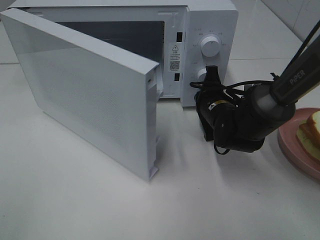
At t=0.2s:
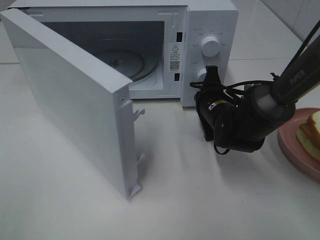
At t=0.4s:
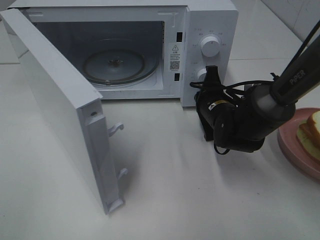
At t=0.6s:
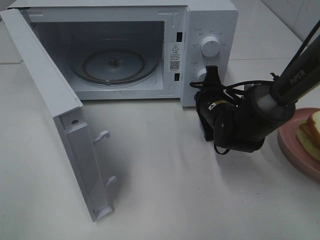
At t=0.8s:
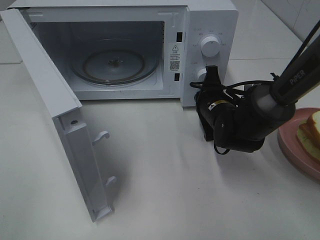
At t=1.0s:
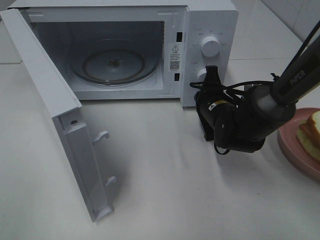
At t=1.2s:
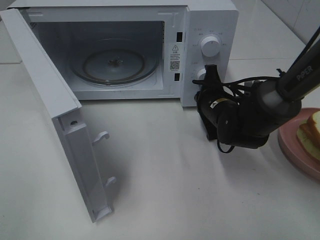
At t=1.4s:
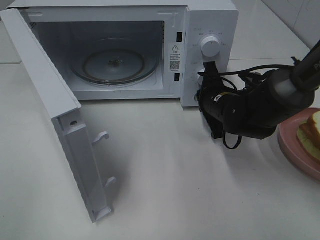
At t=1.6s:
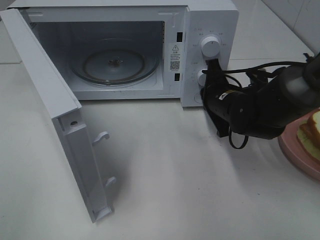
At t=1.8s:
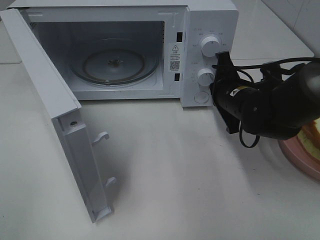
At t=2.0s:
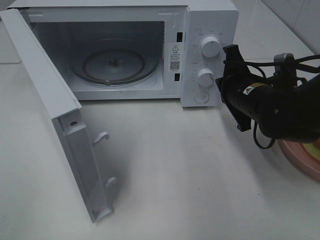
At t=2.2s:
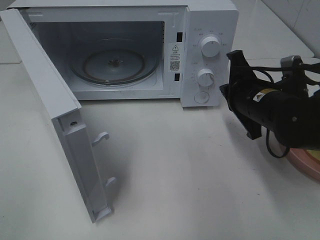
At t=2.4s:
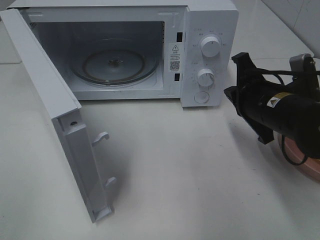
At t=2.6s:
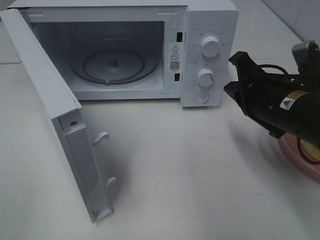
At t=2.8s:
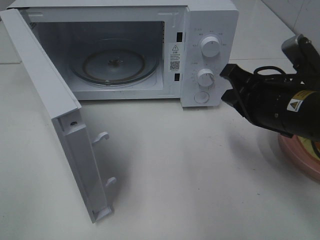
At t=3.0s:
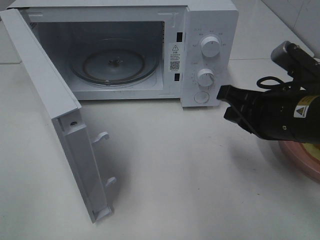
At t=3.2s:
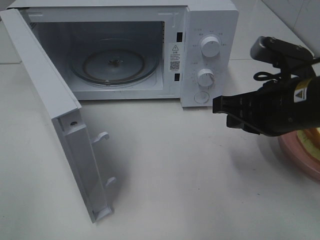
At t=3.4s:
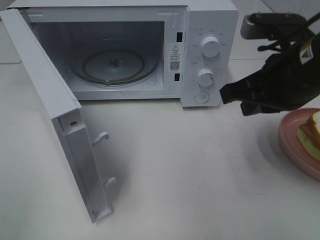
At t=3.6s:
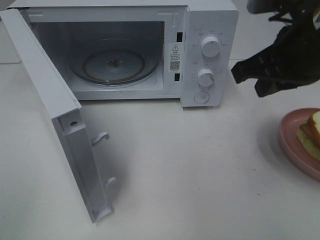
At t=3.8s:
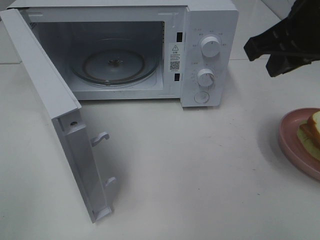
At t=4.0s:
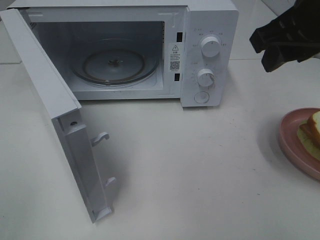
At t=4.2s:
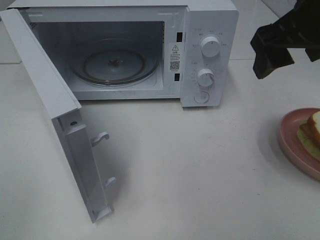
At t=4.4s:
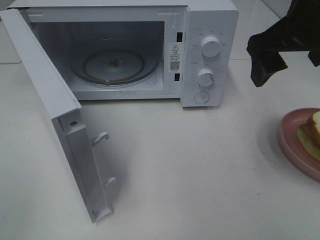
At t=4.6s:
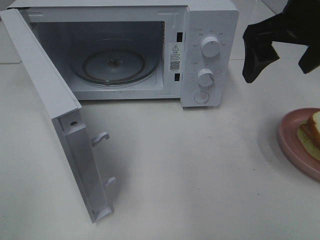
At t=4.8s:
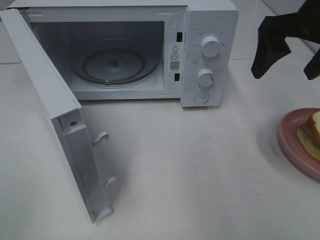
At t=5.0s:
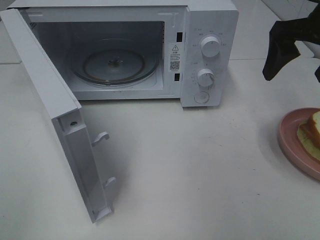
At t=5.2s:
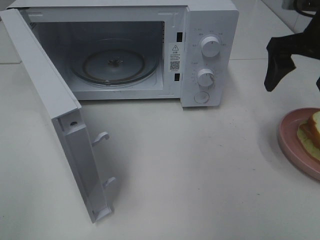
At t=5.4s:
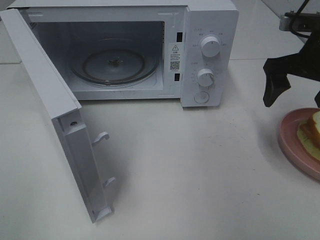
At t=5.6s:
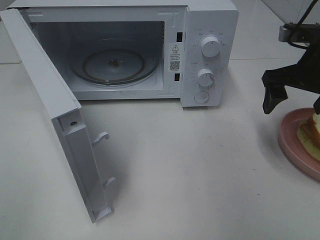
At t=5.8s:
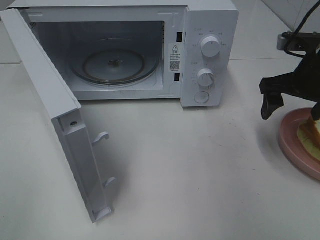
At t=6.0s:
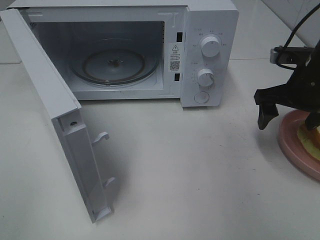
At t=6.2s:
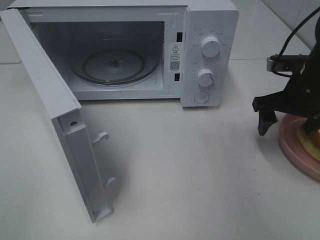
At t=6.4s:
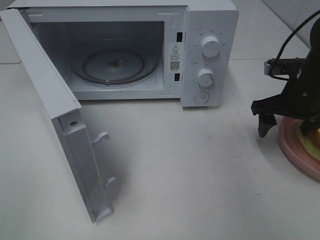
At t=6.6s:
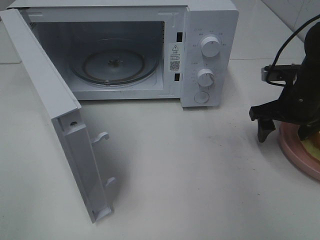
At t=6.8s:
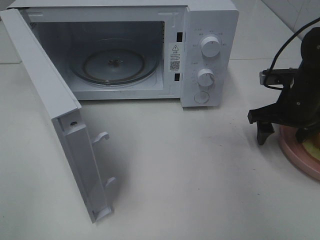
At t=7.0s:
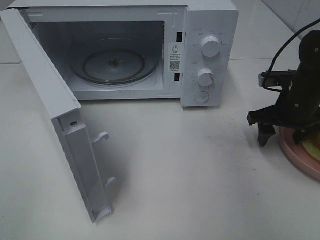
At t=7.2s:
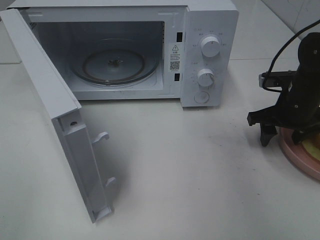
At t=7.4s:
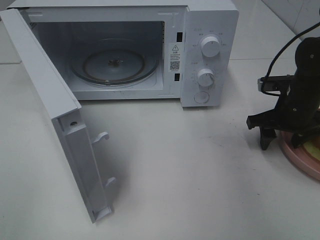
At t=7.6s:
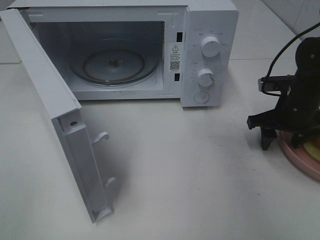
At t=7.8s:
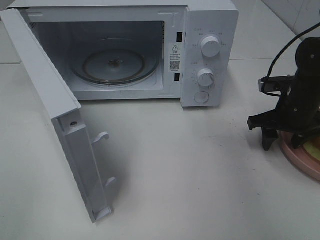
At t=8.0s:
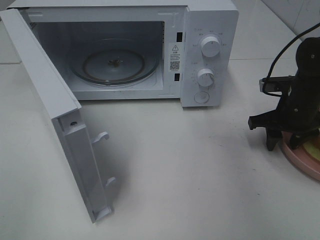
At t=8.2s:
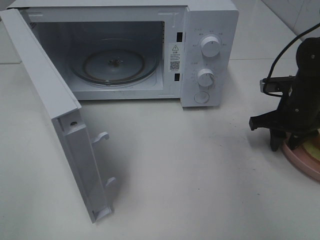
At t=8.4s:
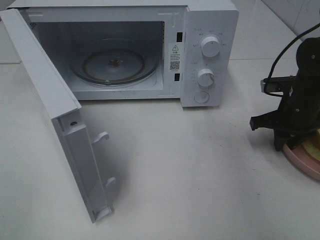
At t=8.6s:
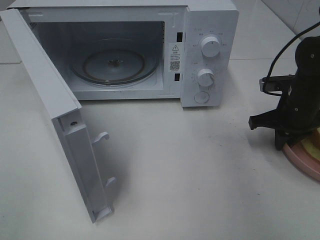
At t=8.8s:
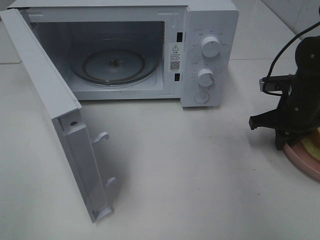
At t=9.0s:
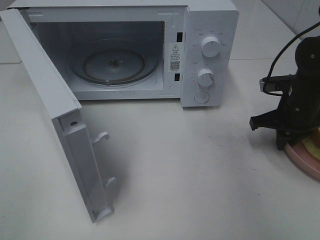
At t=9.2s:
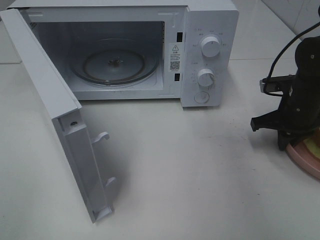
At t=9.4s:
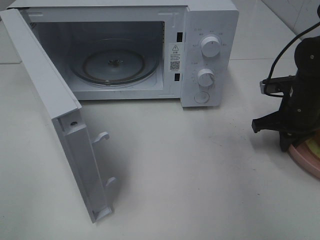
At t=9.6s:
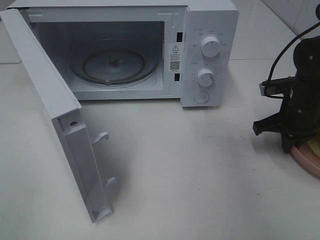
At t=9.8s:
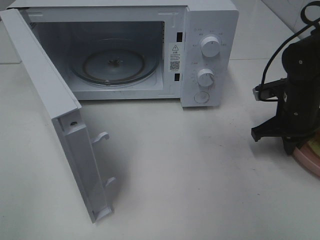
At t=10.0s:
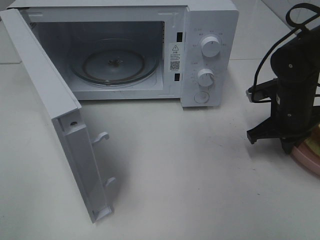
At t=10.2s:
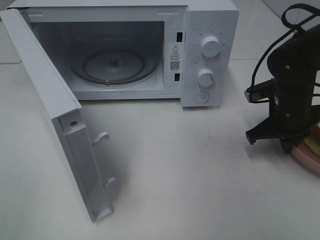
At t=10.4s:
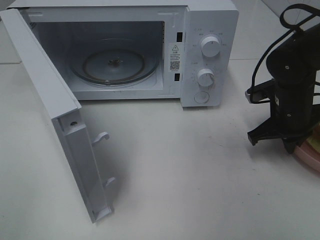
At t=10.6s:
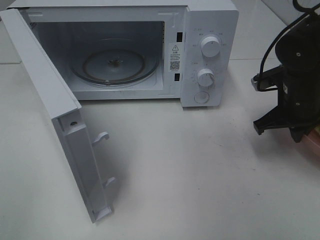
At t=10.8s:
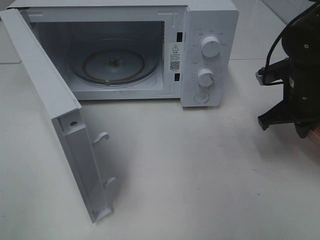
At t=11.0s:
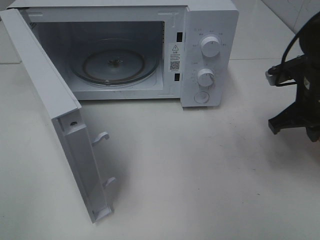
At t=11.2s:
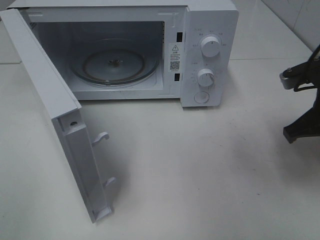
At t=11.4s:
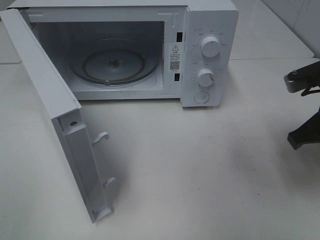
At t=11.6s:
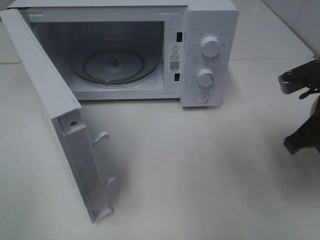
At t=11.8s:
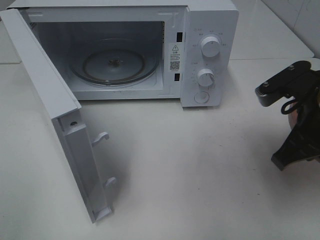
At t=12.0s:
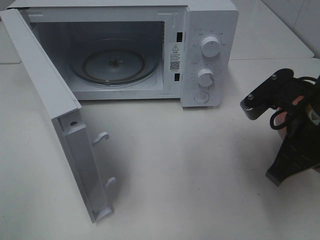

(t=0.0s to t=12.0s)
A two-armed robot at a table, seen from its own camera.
Task of the whole recording: Heat Sandwich.
Step, t=0.0s - t=2.2s: Right hand: press the switch.
Step, t=2.4s - t=9.0s: Right hand: grab the plate with the sandwich.
t=1.6s - t=3.0s: The right gripper goes about 15 cm backward and upward.
t=3.0s - t=4.4s: The right gripper shifts roughly 15 cm upward, and opens up.
t=4.4s - t=6.0s: The right gripper travels downward, to the right and forward by roughly 20 cm.
t=6.0s - t=7.6s: The right gripper is displaced downward by about 5 cm.
t=7.6s - t=9.0s: The right gripper closes up.
t=9.0s - t=10.4s: There are only small adjustments of the grippers.
t=10.4s - t=12.0s: The right gripper heads backward and upward, covering some 15 cm.

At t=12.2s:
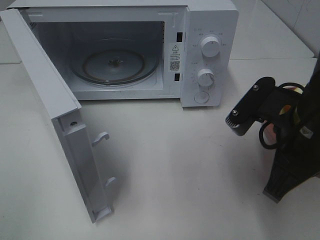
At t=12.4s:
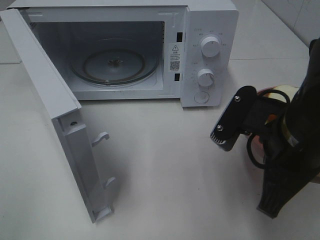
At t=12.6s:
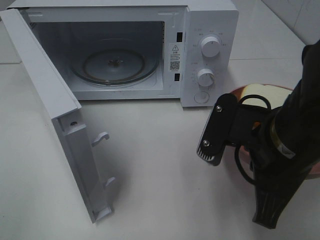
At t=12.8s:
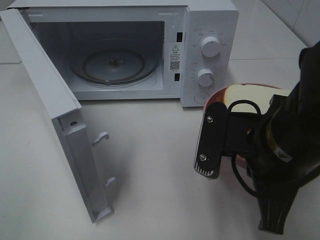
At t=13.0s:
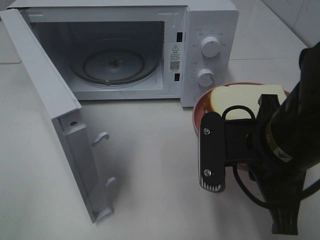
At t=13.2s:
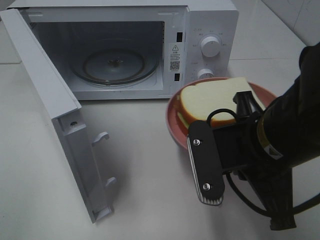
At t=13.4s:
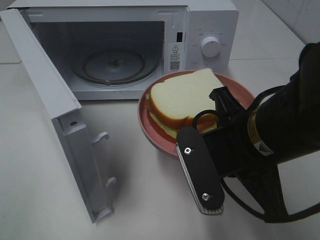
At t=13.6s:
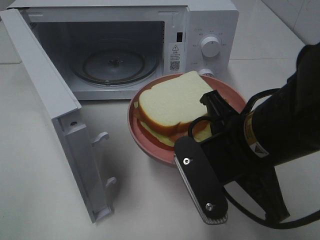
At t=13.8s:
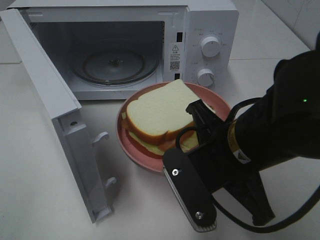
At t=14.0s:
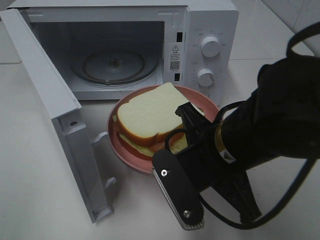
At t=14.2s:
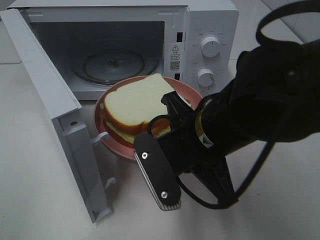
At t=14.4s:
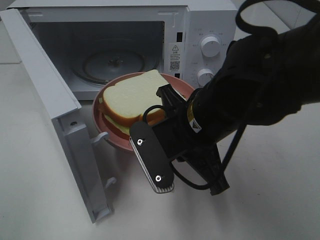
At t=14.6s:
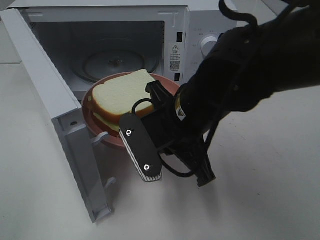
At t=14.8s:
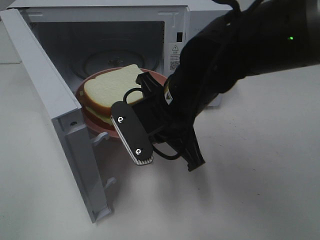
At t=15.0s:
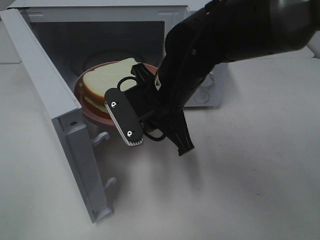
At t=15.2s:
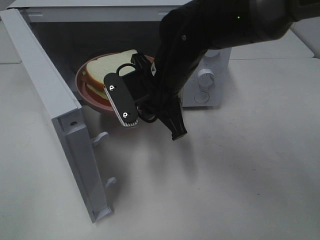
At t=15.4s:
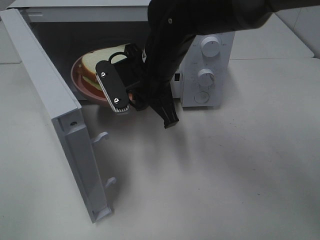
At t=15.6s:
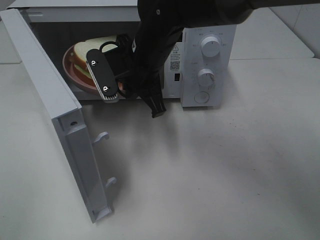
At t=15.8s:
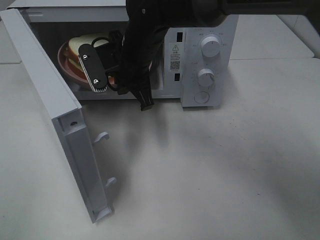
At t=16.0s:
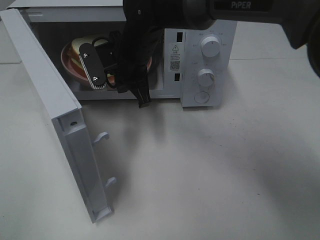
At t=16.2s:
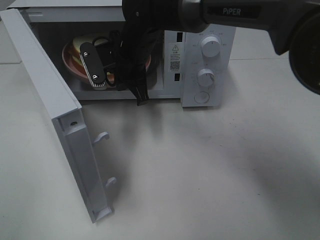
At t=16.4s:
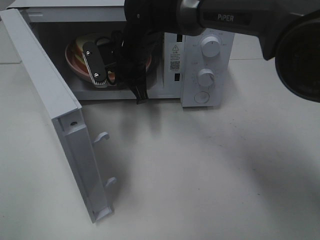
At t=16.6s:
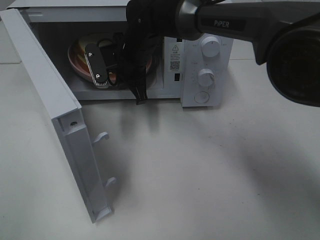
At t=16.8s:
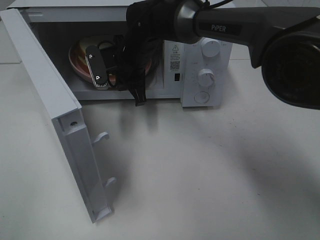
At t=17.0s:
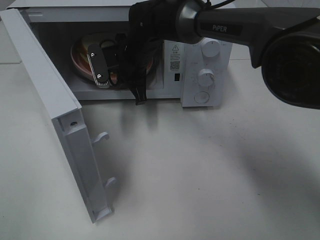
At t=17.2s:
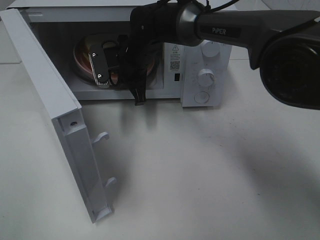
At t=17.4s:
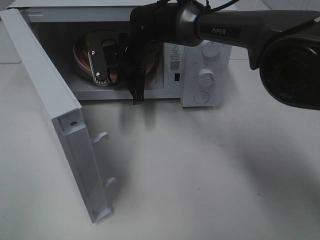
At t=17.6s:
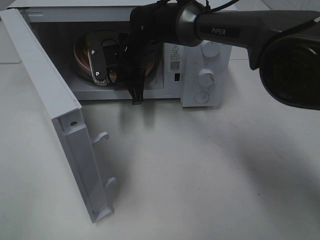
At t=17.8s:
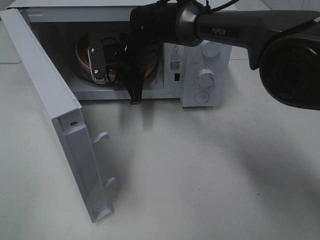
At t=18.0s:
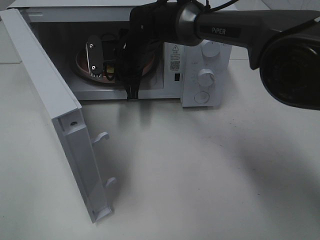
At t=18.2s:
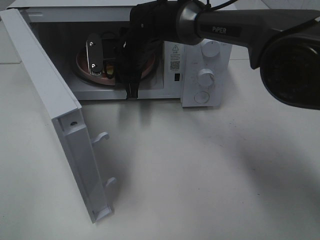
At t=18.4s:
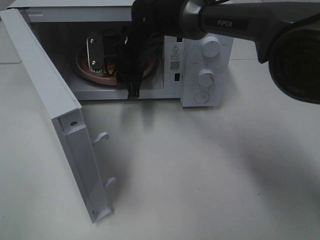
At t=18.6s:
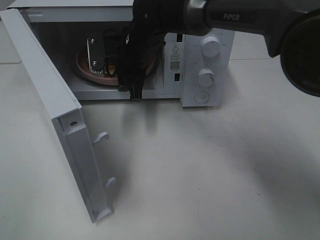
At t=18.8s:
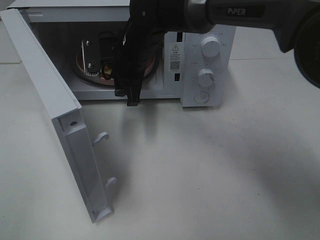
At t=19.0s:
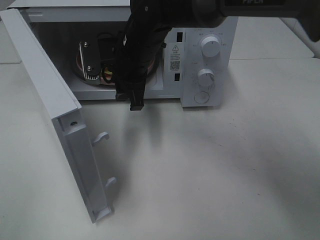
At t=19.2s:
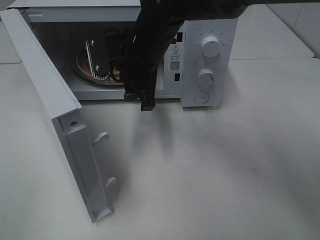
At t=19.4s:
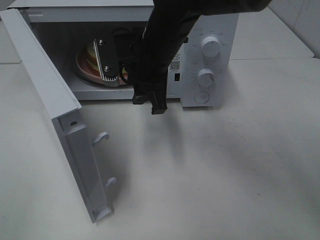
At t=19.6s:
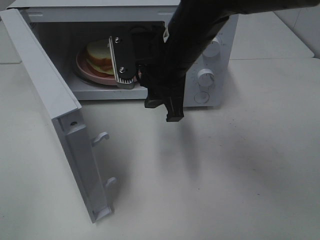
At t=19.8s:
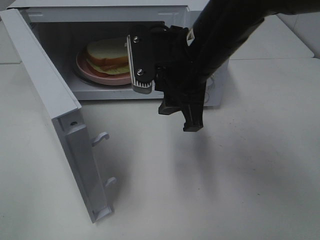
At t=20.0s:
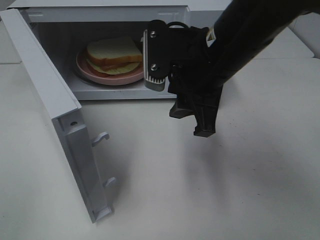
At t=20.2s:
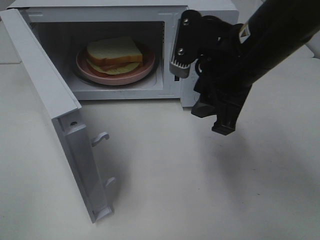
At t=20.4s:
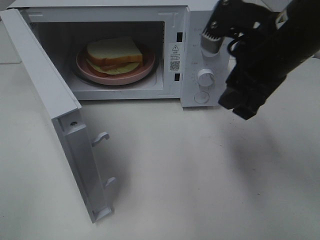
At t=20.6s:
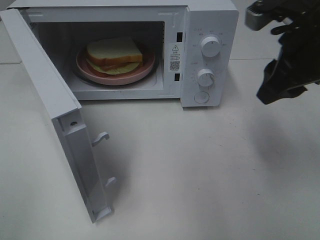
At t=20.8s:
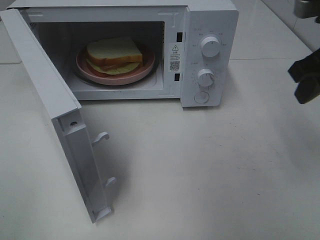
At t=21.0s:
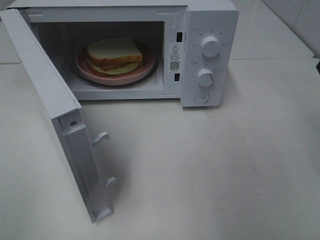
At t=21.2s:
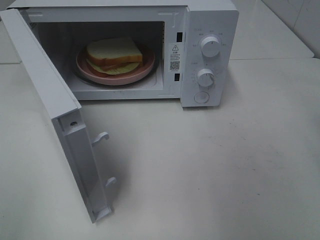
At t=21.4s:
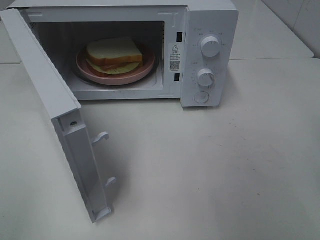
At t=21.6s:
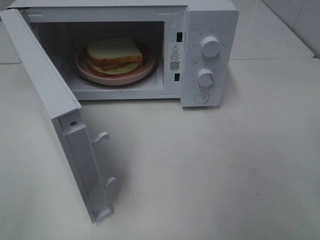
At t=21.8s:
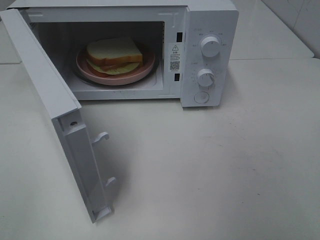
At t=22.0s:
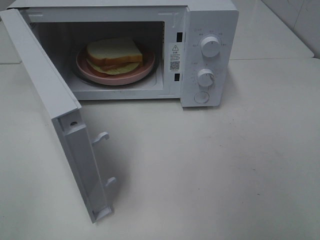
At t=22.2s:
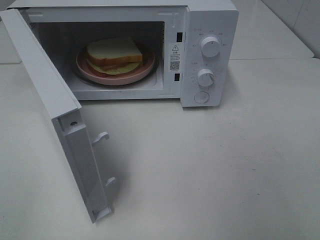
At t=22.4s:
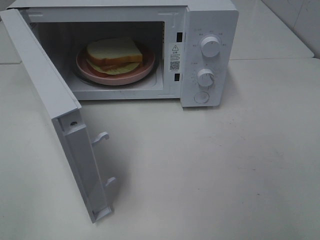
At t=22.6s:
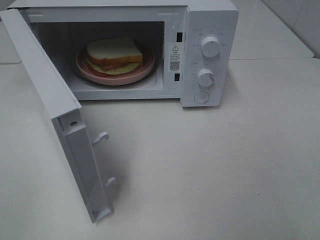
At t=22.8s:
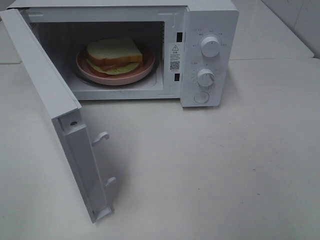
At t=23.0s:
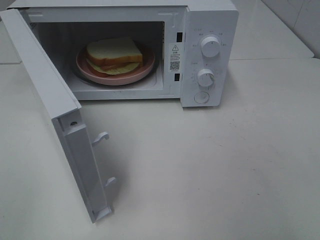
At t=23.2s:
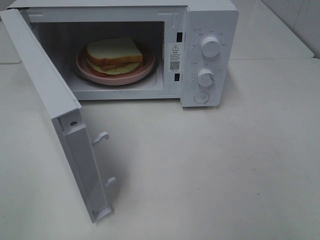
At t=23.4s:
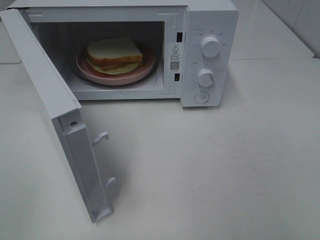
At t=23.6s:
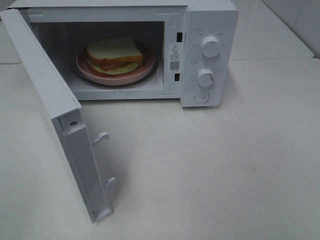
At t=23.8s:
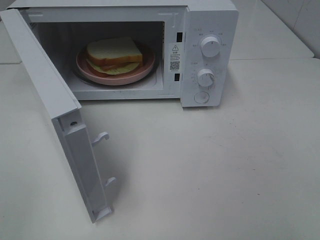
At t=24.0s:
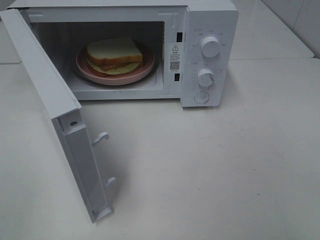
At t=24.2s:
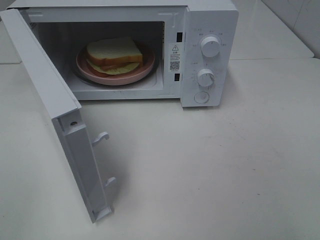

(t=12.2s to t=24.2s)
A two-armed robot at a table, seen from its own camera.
Task of the whole recording: Heat Sandwich.
Step, t=12.2s - t=19.4s: Right hand: place the plate in the microwave.
t=12.2s - t=13.8s: The right gripper travels to the left by approximately 5 cm.
t=13.8s - t=15.2s: The right gripper travels forward and to the left by approximately 15 cm.
t=15.2s - t=16.6s: The right gripper shifts some 15 cm forward and to the left.
t=16.6s - t=18.2s: The right gripper opens.
t=18.2s - t=19.8s: The right gripper travels backward, to the right and upward by roughly 20 cm.
t=19.8s - t=21.2s: The right gripper heads to the right, covering approximately 25 cm.
